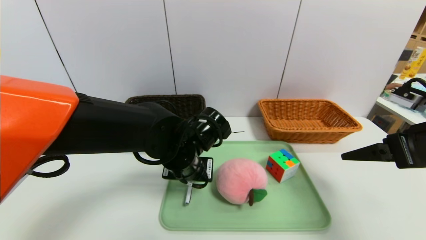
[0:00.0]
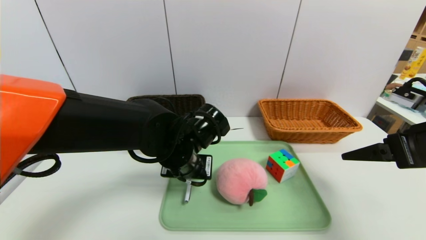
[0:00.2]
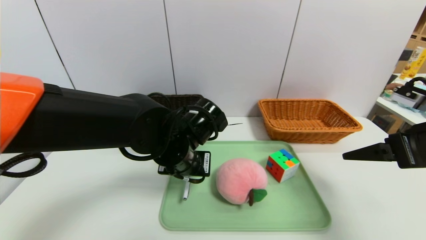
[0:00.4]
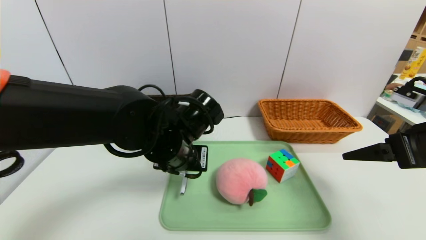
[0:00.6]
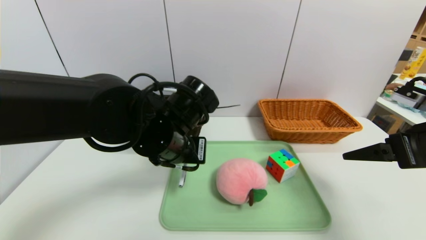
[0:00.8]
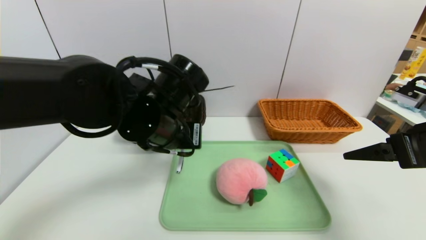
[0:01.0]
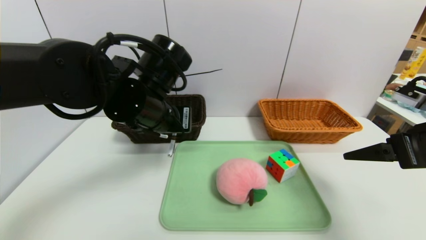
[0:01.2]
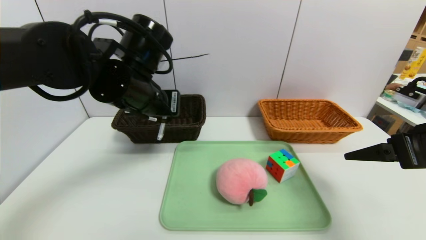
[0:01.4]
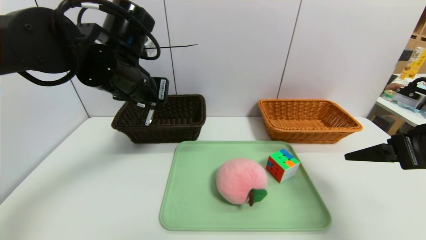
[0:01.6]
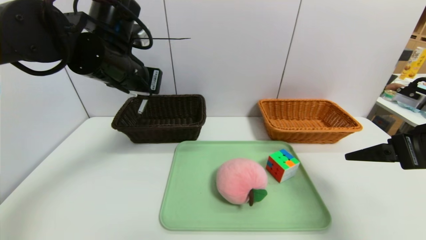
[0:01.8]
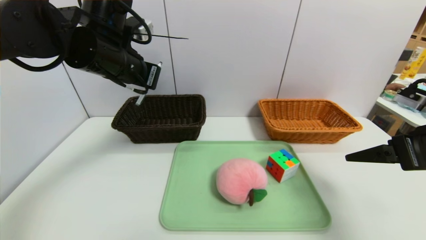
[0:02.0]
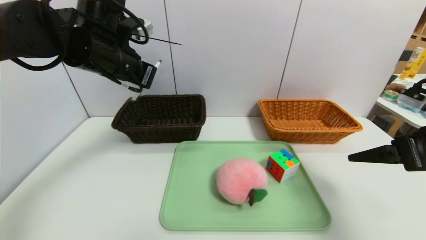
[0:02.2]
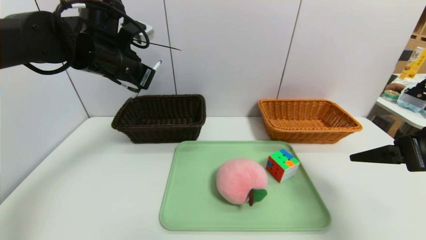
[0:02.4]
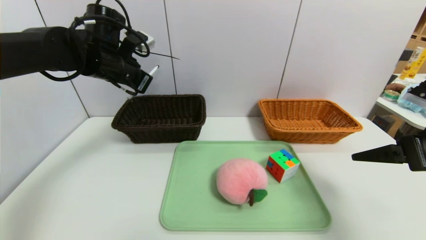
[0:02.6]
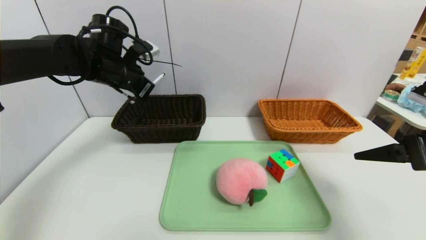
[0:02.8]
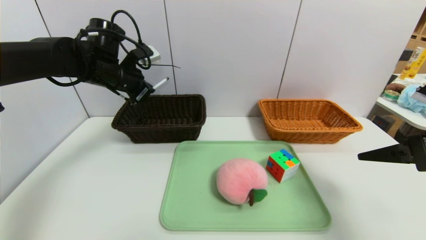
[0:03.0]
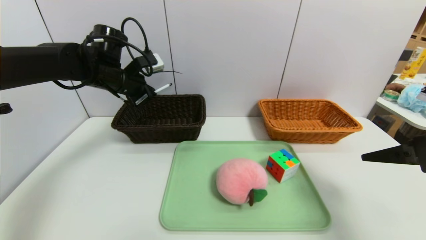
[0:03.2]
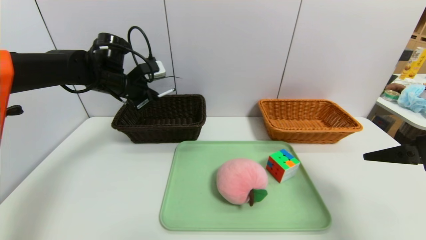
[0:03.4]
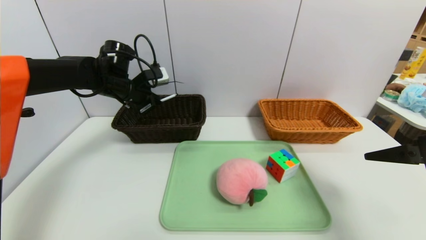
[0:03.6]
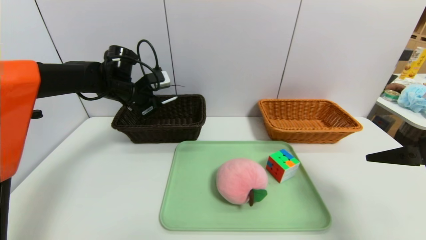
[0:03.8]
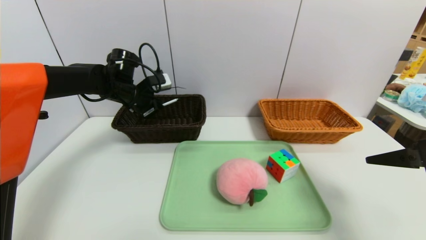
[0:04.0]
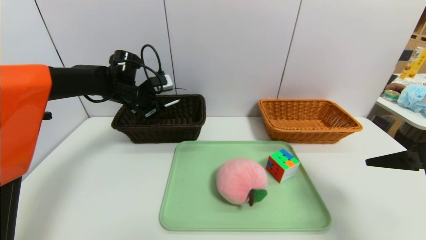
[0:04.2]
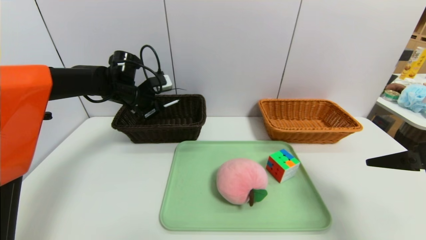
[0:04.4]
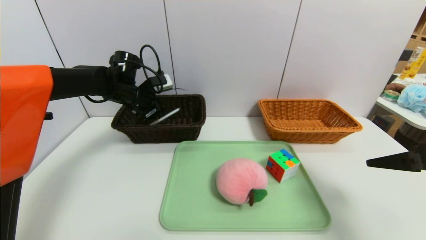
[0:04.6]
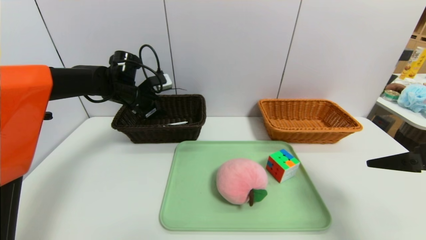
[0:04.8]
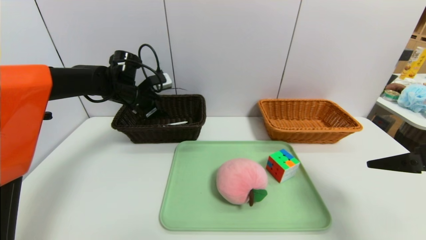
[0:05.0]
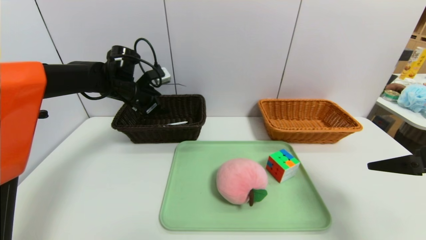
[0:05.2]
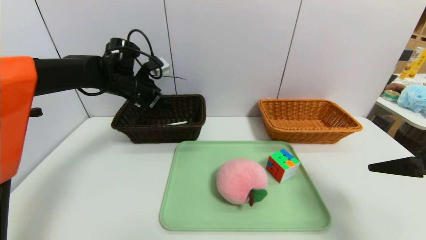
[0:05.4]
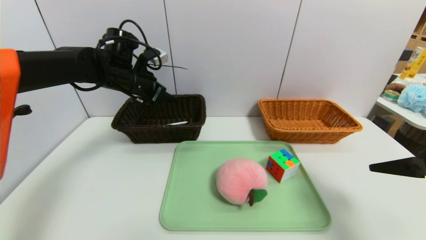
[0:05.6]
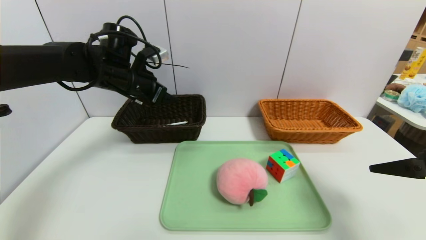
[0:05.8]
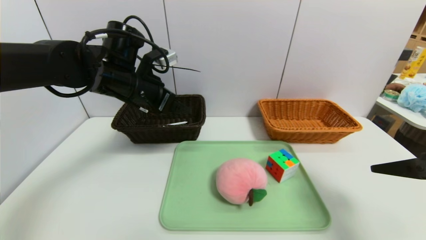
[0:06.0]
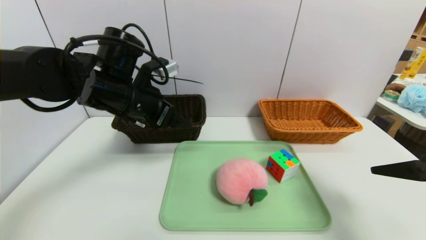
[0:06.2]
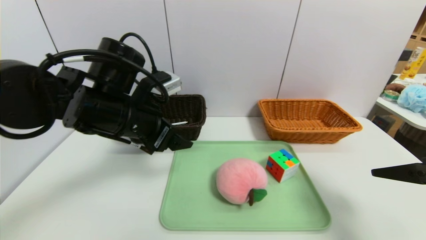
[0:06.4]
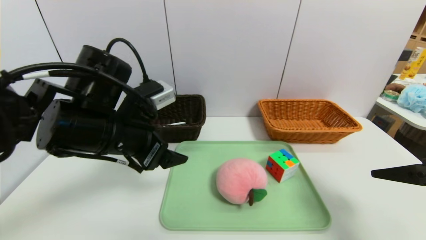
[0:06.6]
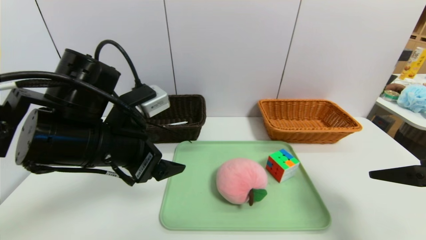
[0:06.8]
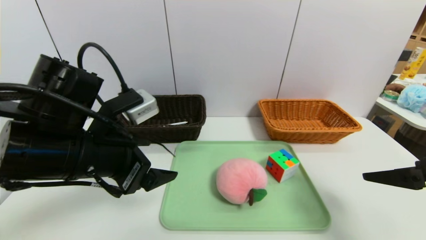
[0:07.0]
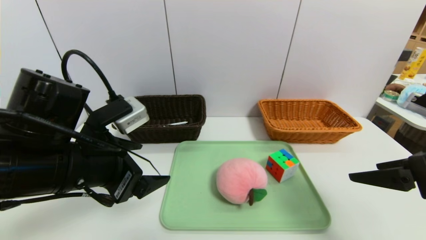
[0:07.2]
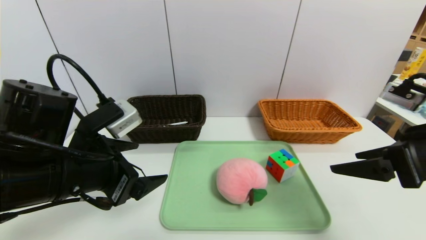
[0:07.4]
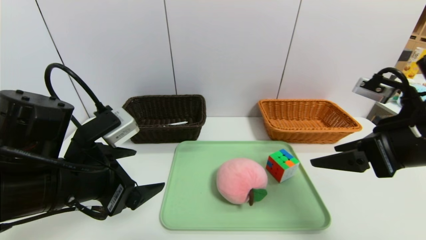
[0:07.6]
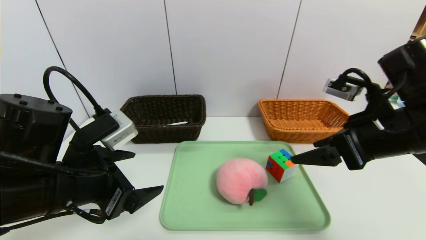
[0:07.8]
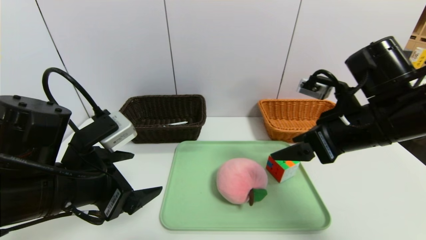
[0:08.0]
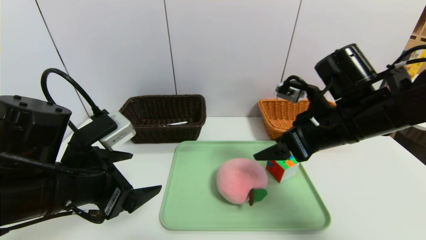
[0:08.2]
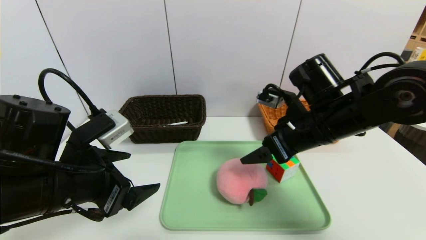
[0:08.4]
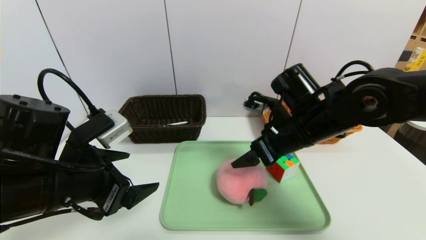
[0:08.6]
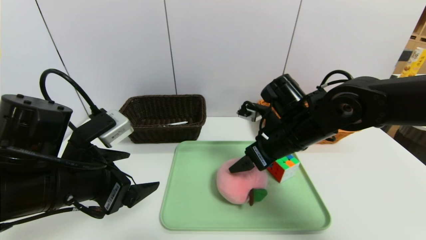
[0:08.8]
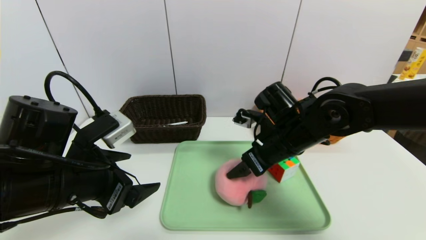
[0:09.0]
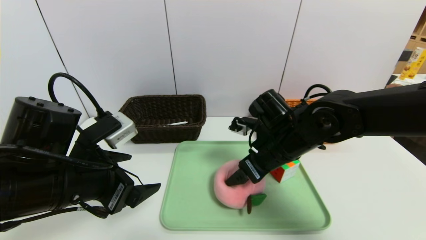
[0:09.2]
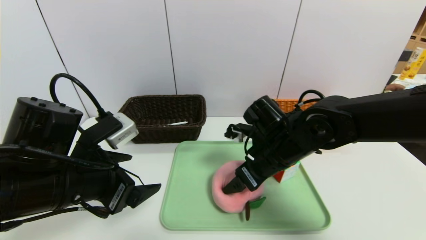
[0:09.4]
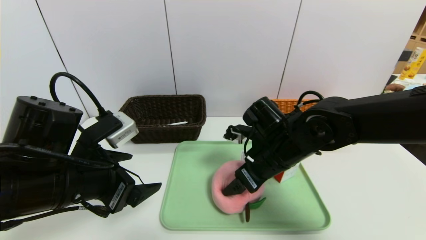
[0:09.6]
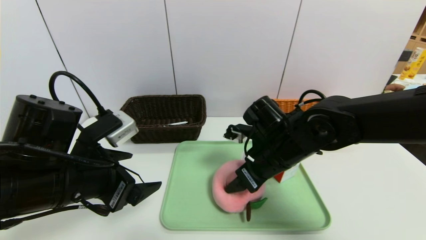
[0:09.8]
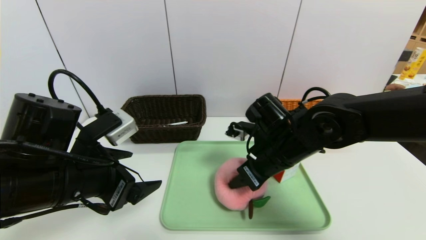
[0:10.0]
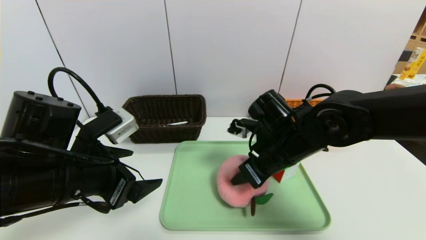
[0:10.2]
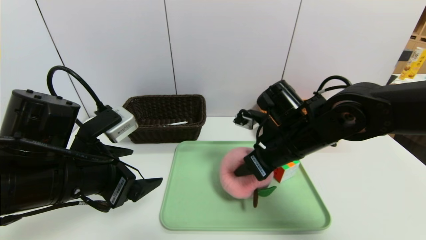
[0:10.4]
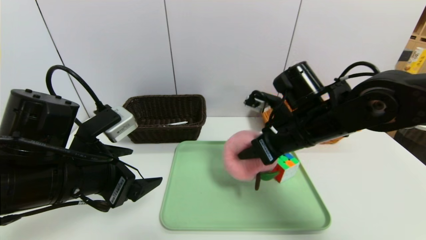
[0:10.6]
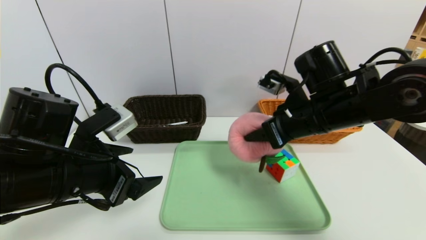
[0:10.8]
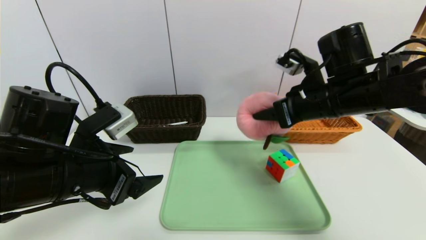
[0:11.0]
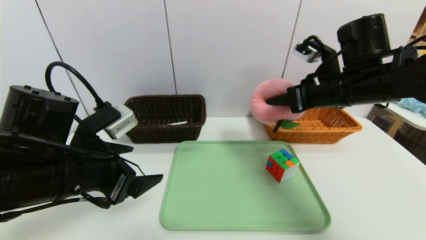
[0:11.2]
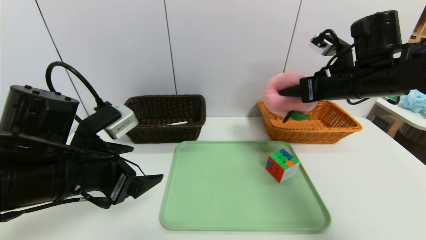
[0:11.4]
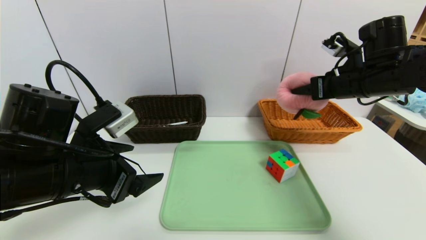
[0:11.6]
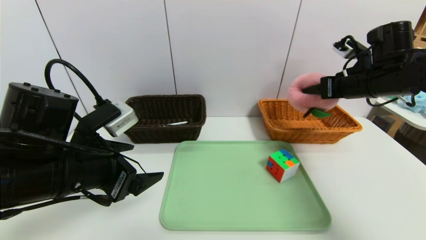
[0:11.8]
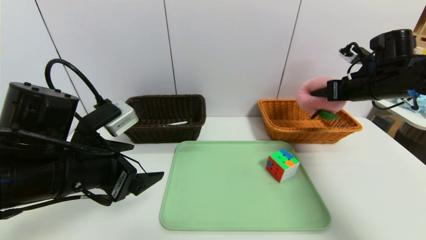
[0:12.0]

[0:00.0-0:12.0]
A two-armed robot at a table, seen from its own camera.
Task of the whole recording: place the food in the right basket with the right gripper, and place the non food items in the left basket with the left gripper.
Step, 0:00.0 to 0:05.2: Grasp the black marker and put it in the left basket.
0:00.0 to 0:01.6: The left gripper moves upward and to the left, some 15 cm.
0:01.6 to 0:03.0: The left gripper travels forward and to the left by about 10 cm.
0:03.0 to 0:04.4: The left gripper shifts some 5 cm downward.
0:04.4 to 0:06.0: The left gripper heads backward, upward and to the right, covering roughly 15 cm, and opens its fingers.
0:06.0 to 0:07.6: The left gripper travels backward by about 20 cm; the right gripper is displaced to the left by some 10 cm.
0:07.6 to 0:09.0: The right gripper moves to the left, forward and downward, about 20 cm.
0:09.0 to 0:10.4: The right gripper closes its fingers.
0:10.4 to 0:12.0: The right gripper heads to the right and forward, covering roughly 20 cm.

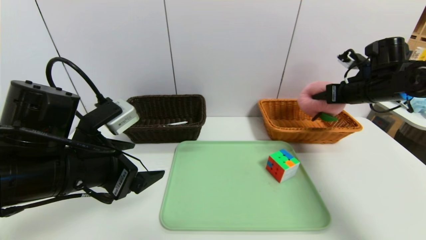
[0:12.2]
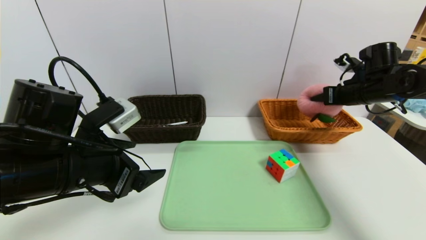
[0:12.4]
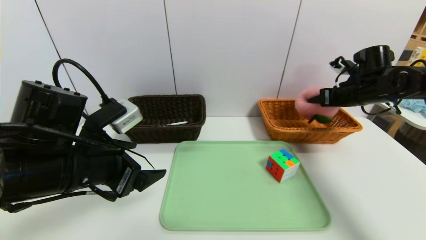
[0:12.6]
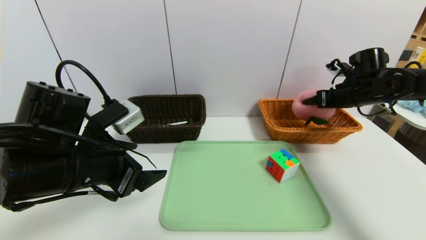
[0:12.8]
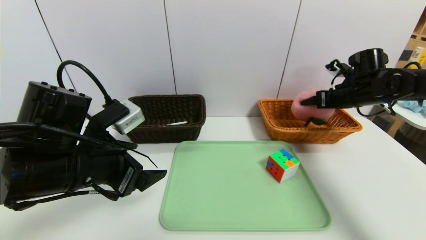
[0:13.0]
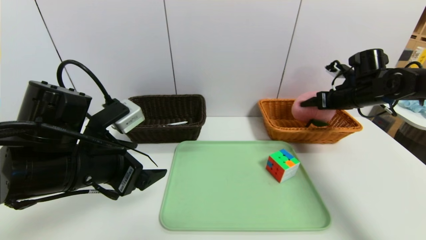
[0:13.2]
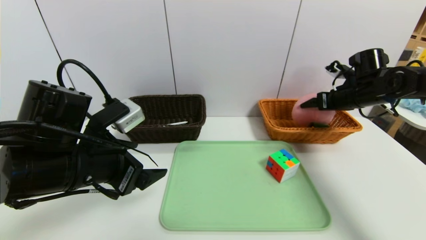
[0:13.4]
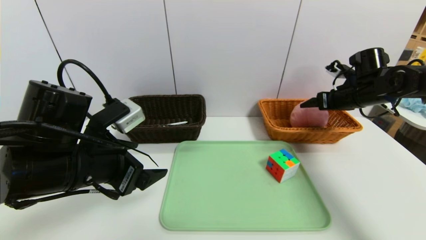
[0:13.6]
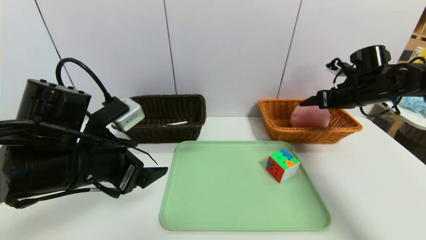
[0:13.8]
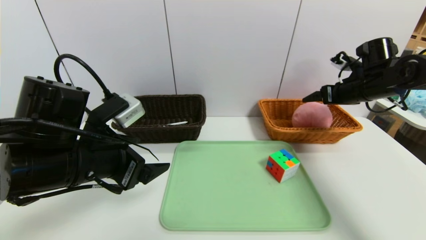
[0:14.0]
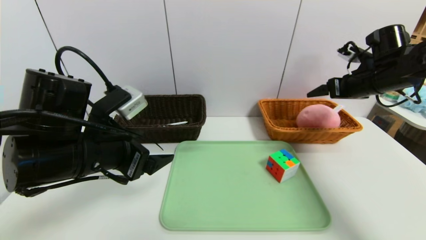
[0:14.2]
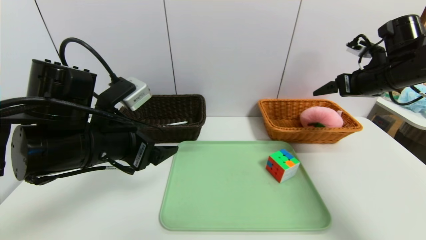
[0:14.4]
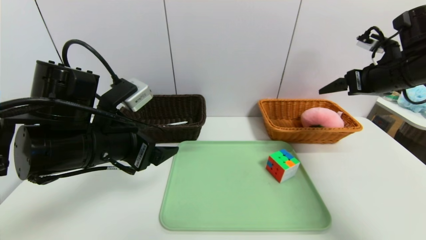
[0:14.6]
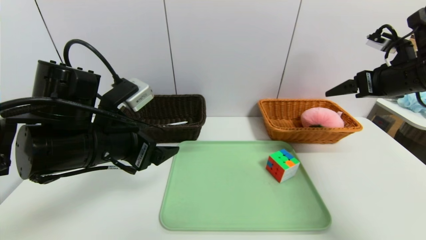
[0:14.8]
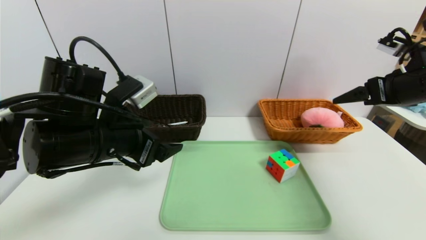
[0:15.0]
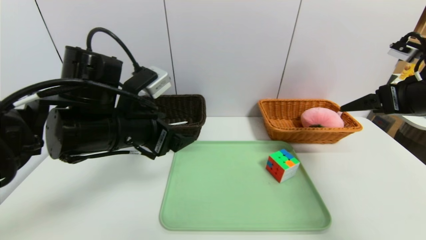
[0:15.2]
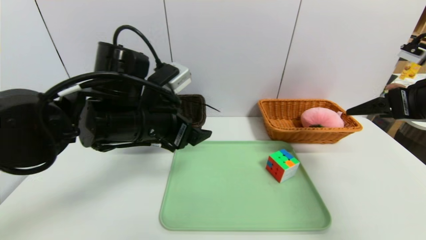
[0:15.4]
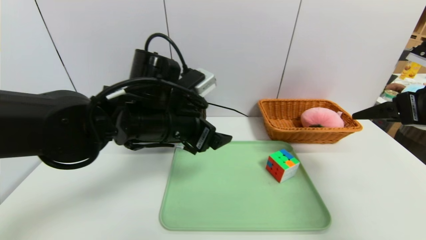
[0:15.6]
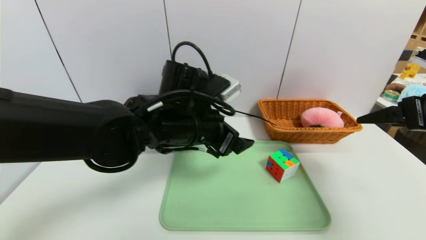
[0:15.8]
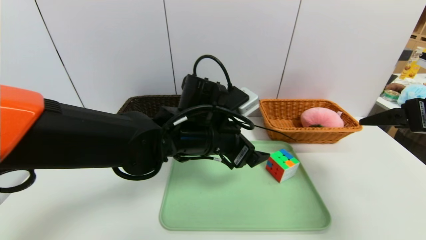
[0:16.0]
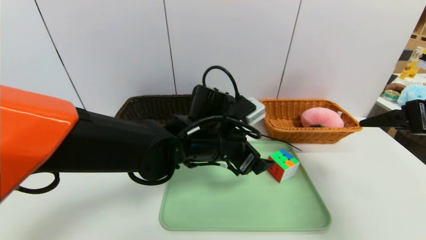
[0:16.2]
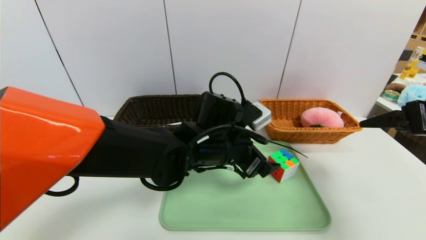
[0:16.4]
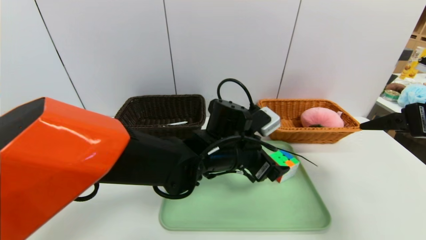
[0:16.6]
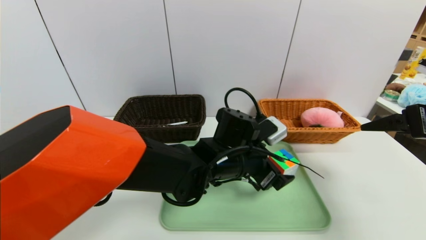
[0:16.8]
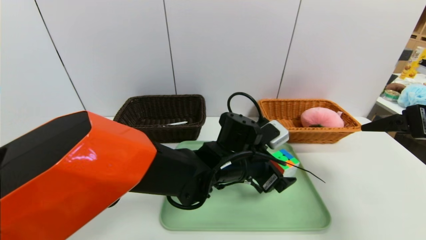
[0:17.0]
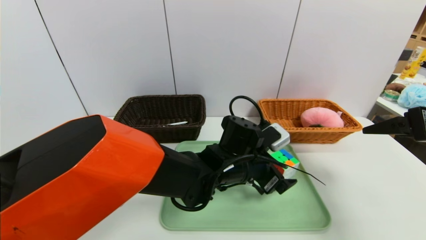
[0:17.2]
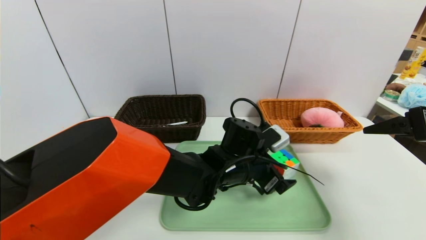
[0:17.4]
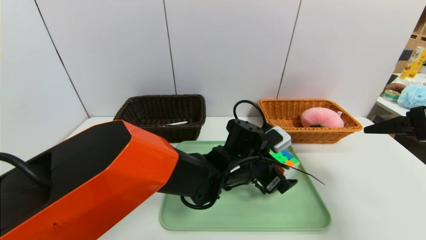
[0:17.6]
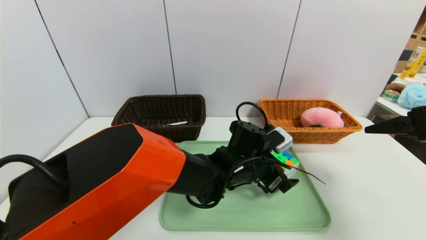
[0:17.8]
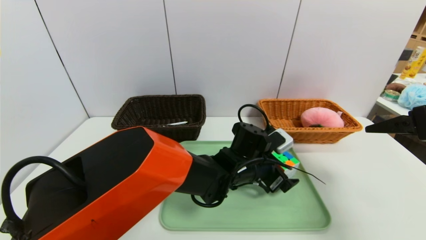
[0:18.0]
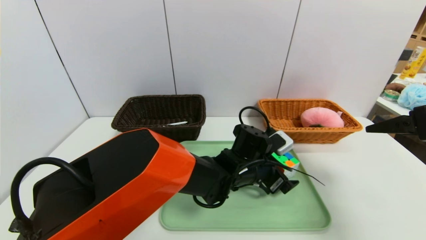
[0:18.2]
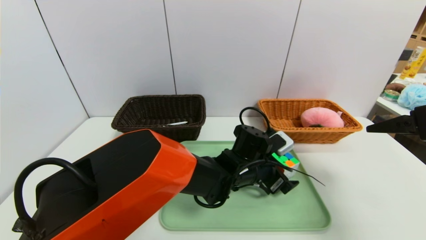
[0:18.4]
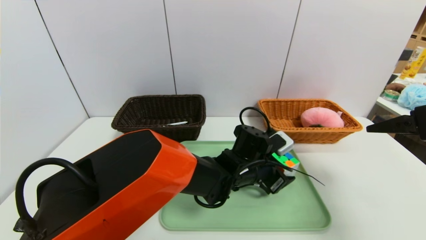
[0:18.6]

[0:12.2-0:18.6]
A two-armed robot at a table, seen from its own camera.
Task of the whole recording: place the food in the right basket with the right gripper, and place the non food items in the left basket with the left gripper.
0:12.2 to 0:13.8: The right gripper opens up.
0:13.8 to 0:15.4: The right gripper is displaced backward and upward by about 20 cm, while the left gripper goes roughly 10 cm to the right and forward.
0:15.4 to 0:17.0: The left gripper travels to the right and downward by roughly 20 cm.
0:17.0 to 0:18.6: The left gripper moves about 5 cm.
